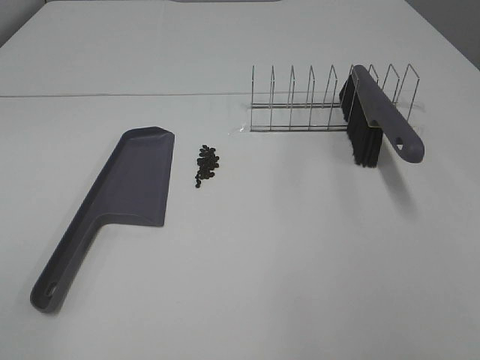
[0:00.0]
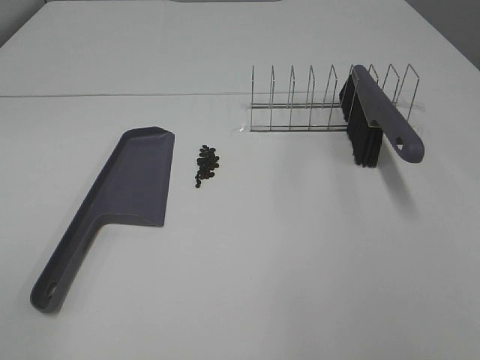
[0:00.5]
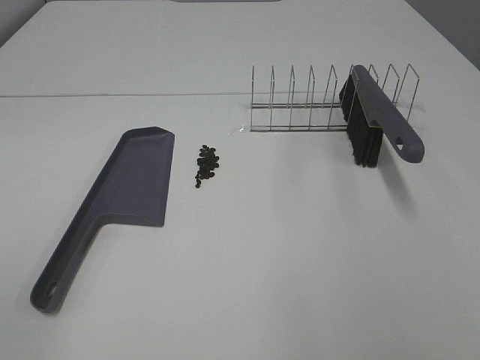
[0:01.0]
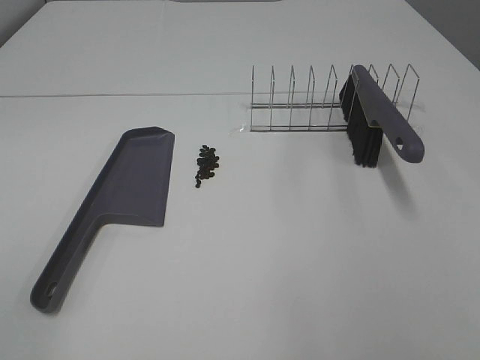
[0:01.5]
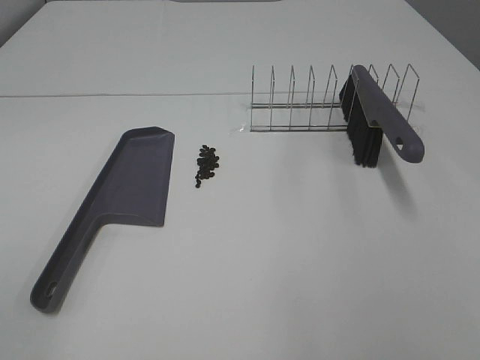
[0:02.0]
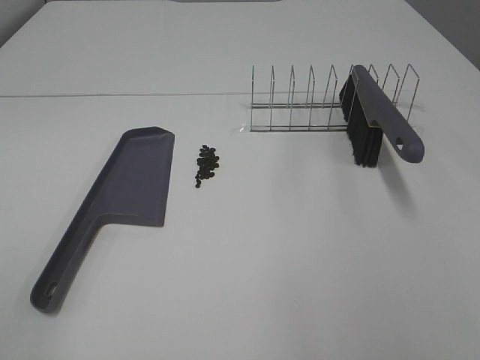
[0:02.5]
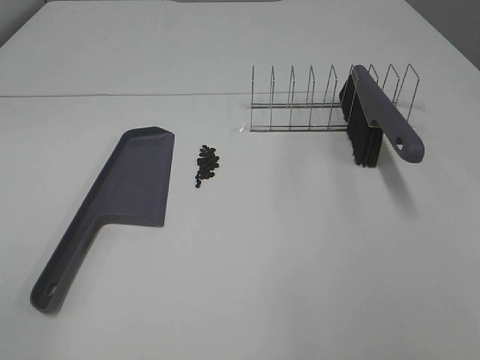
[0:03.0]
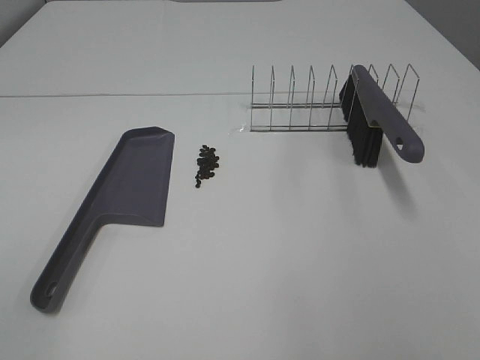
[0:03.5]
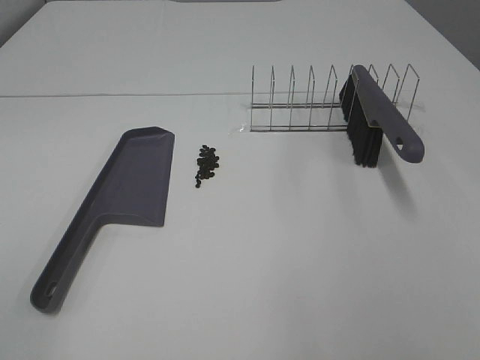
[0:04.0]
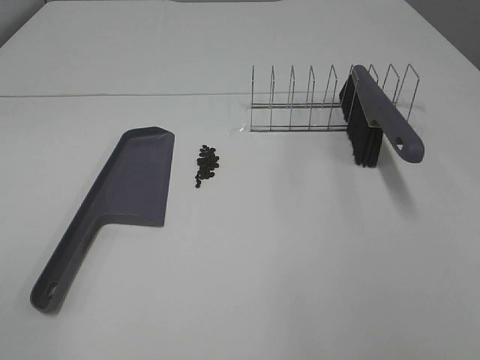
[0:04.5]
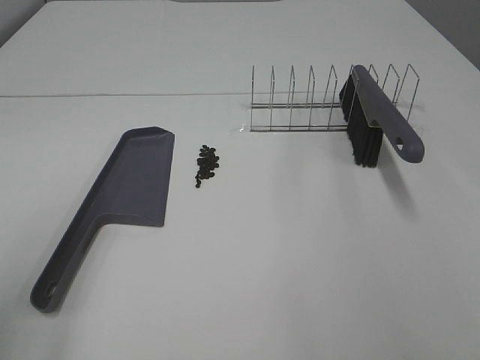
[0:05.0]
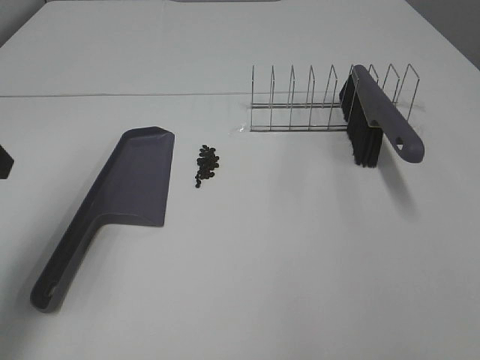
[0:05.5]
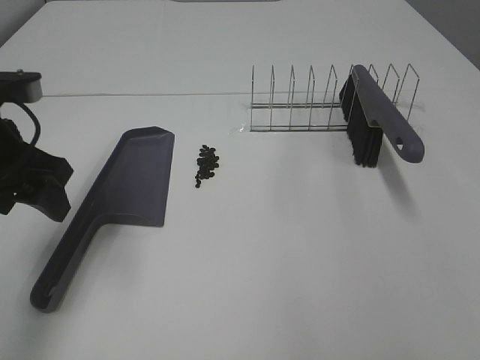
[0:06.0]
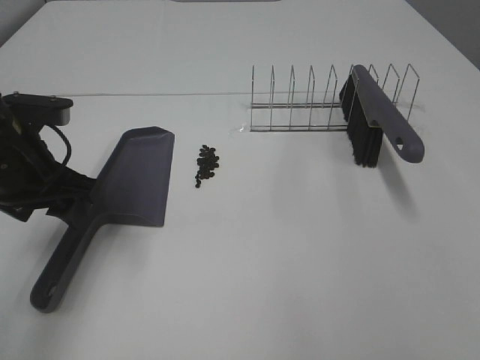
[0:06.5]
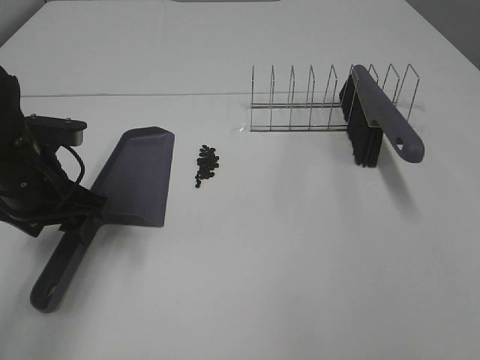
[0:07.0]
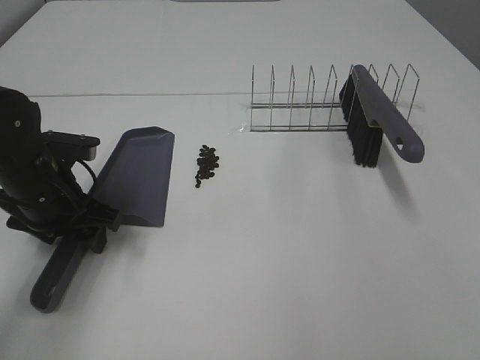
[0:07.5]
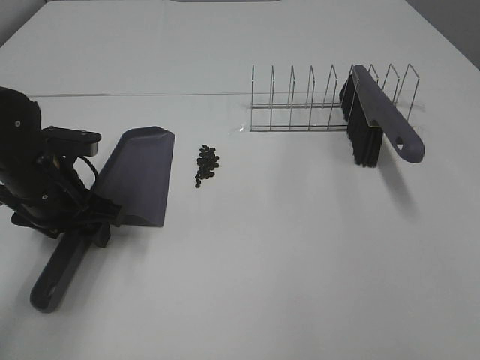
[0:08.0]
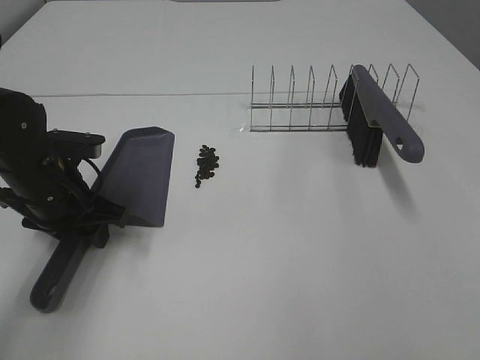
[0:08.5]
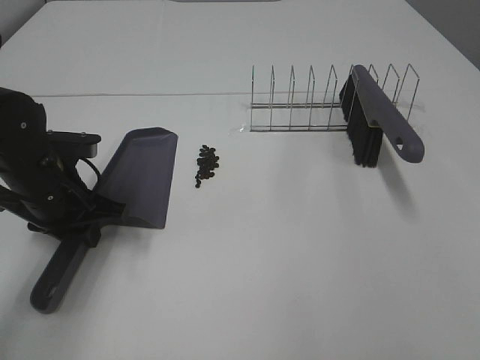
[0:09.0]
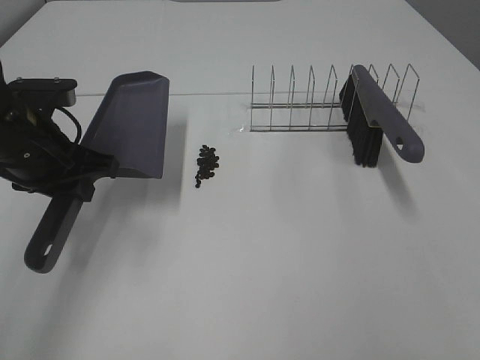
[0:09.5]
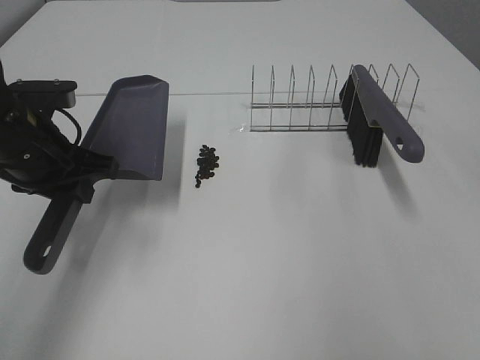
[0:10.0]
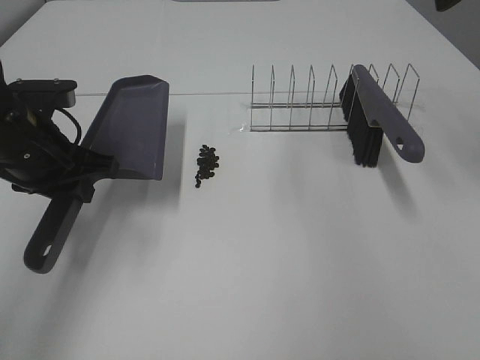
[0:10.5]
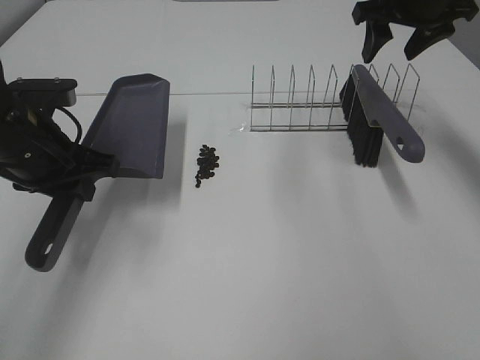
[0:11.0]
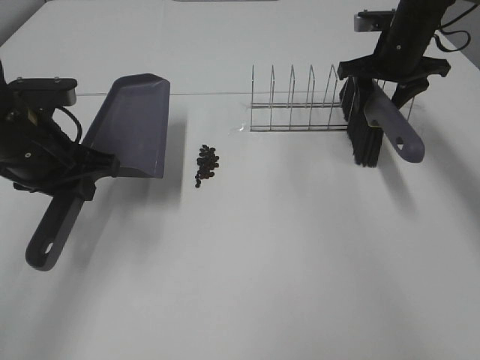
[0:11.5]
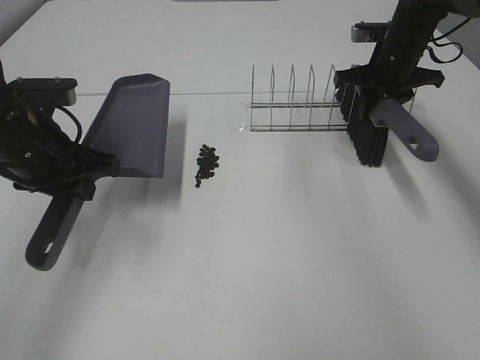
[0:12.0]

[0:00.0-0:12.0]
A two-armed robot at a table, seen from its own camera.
Task of the whole recording: Sweep Coffee Bean.
Step, 0:00.0 to 0:08.5: Left hand: grab the dustpan.
0:00.0 to 0:04.0: Both grippers stay put.
0:04.0 to 0:06.0: The left gripper heads forward, covering some 30 cm.
0:06.0 to 0:08.0: The left gripper heads downward, covering approximately 10 cm.
0:08.0 to 0:10.0: The left gripper moves upward, some 5 cm, and closes, while the right gripper moves forward and upward, some 15 cm.
0:10.0 to 0:12.0: The right gripper heads forward and downward, covering roughly 40 cm, and closes its fingers.

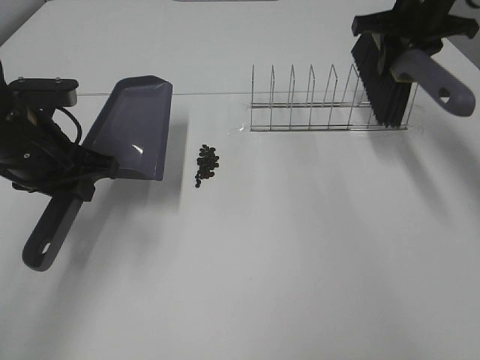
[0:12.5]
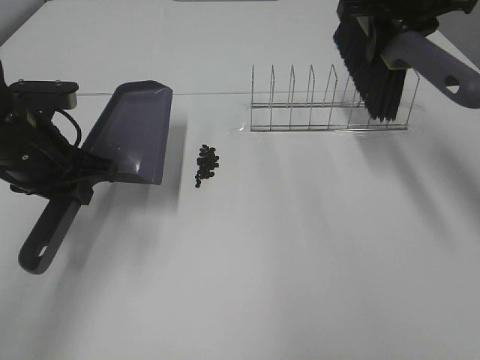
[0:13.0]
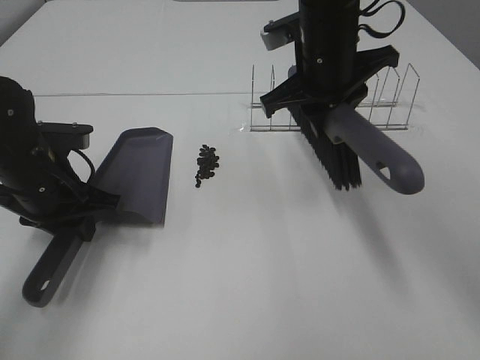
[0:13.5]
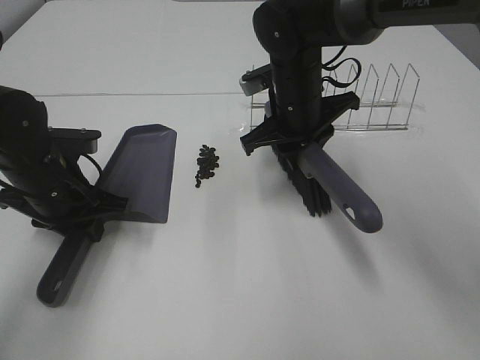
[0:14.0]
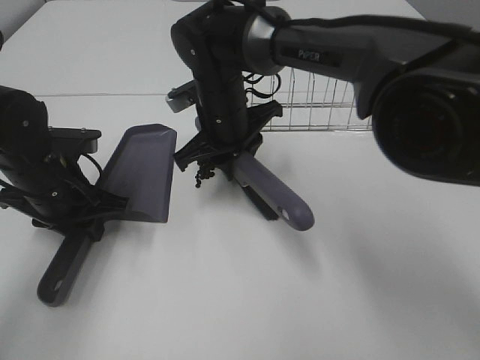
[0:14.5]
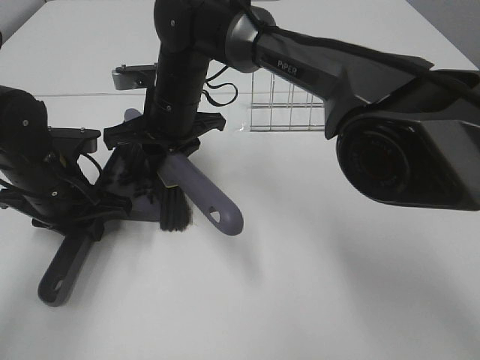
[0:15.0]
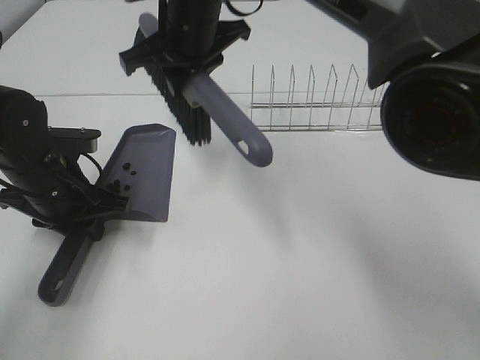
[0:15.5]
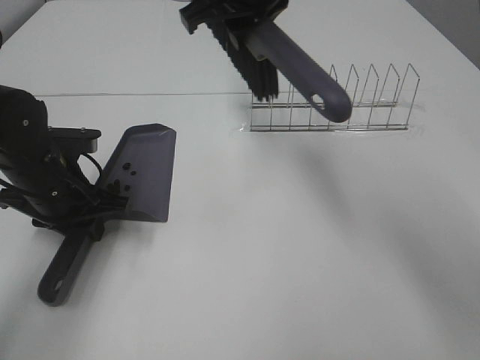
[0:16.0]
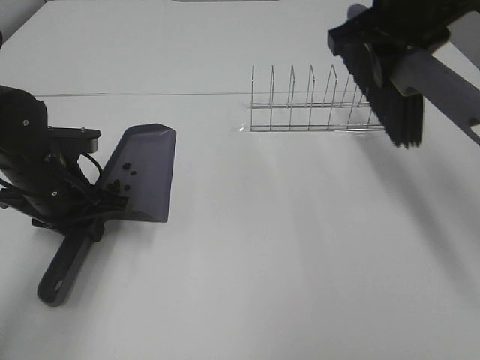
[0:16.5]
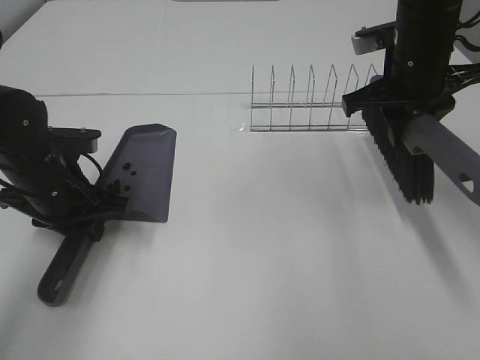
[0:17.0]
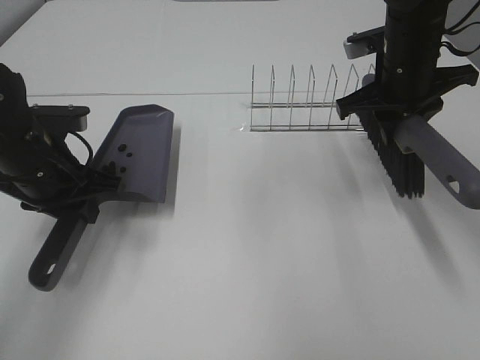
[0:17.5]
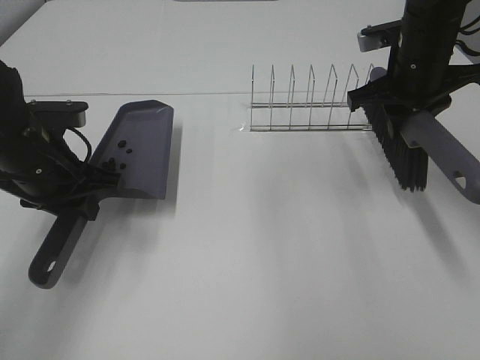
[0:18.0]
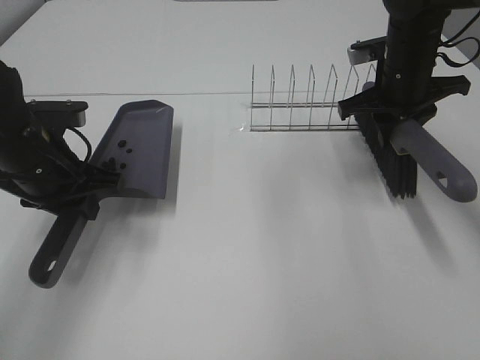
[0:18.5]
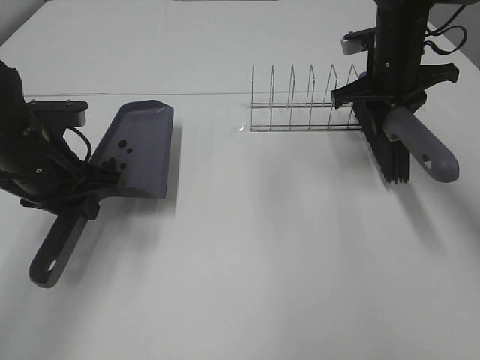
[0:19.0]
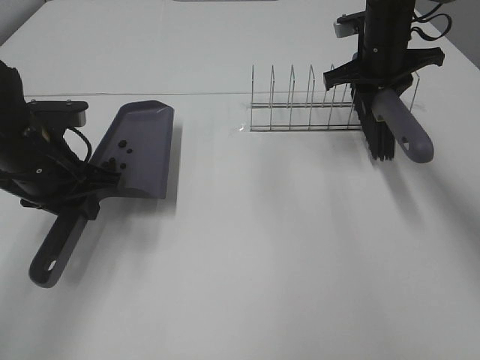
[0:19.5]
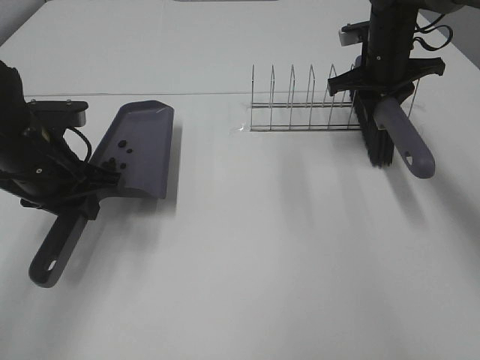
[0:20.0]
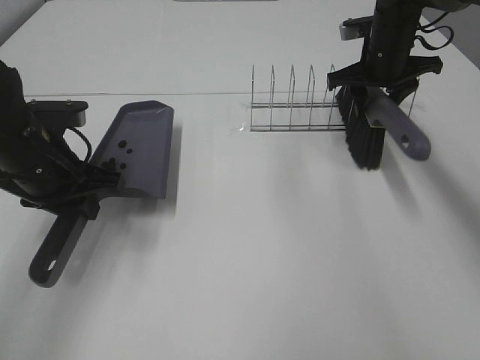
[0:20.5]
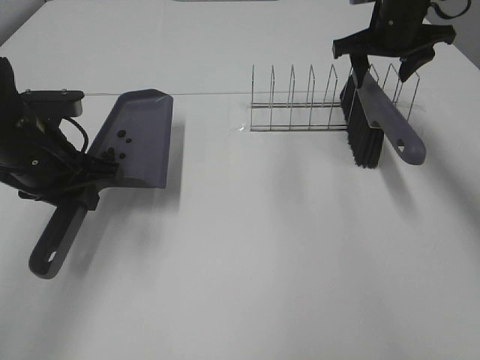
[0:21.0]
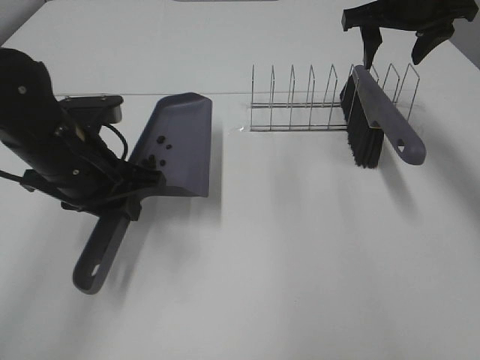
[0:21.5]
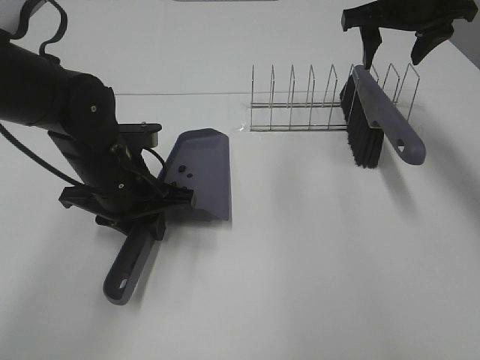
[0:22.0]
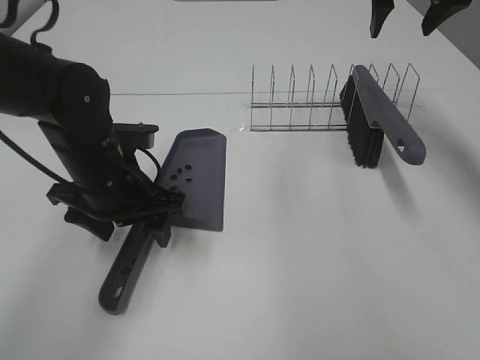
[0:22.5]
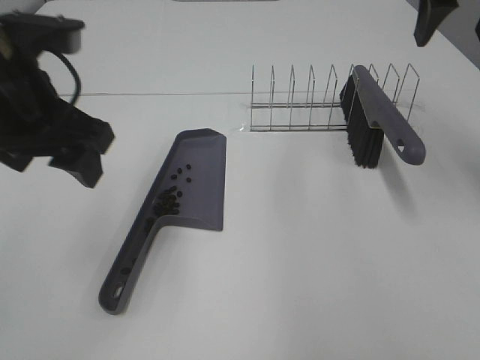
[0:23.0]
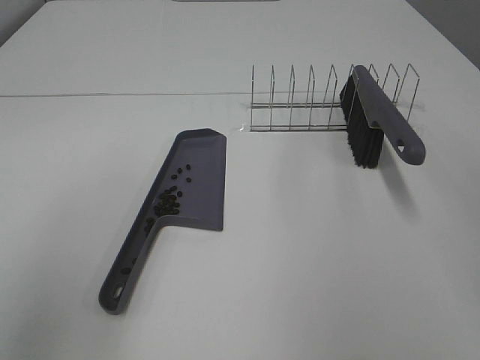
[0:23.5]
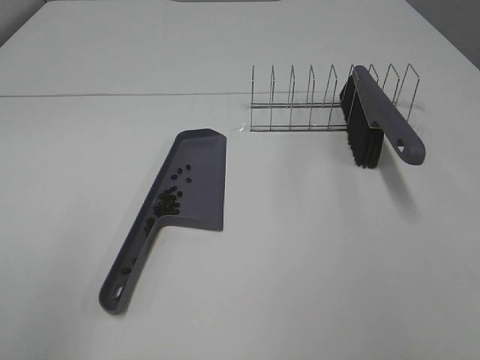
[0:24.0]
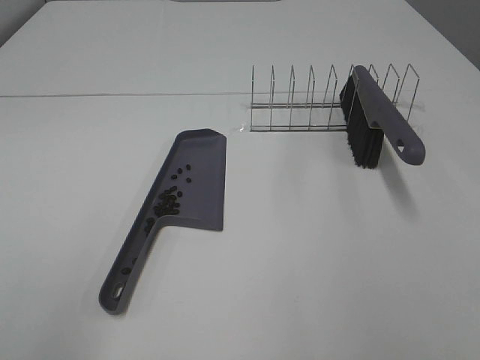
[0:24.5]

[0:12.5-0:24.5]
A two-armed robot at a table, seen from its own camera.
Task of the whole recording: Sweep Coffee Bean.
Step, 0:12.5 to 0:15.0: Right hand:sweep the coffee beans into the dustpan.
Step, 0:15.5 to 0:20.5: Right hand:place the broom on the rack.
Step, 0:21.0 to 0:22.5: Left hand:place the dustpan on the table.
0:12.5 to 0:14.5: The right gripper travels to the left and downward by about 30 cm; the left gripper heads downward, covering roughly 5 cm.
0:14.5 to 0:16.5: The right gripper is displaced to the right and upward by roughly 25 cm.
0:16.5 to 0:18.5: The right gripper heads downward and forward, covering roughly 10 cm.
0:18.5 to 0:20.5: The right gripper heads forward, covering some 10 cm, and opens up.
0:20.5 to 0:22.5: The right gripper heads upward, covering roughly 15 cm; the left gripper heads to the right, covering roughly 5 cm, and opens its fingers.
0:22.5 to 0:24.5: The left gripper is displaced backward, upward and to the left by roughly 35 cm, while the right gripper shifts approximately 40 cm backward.
